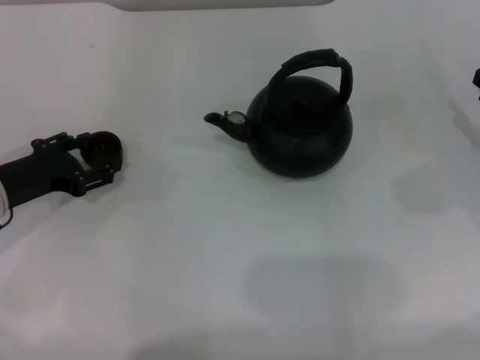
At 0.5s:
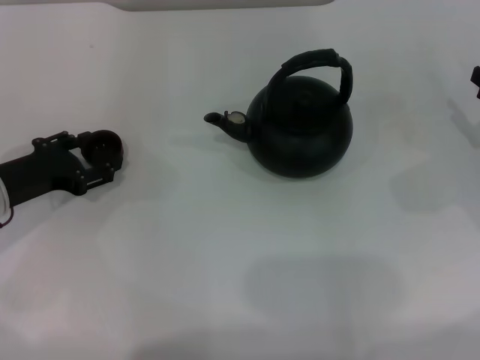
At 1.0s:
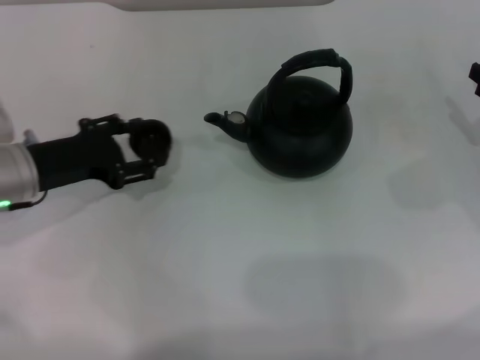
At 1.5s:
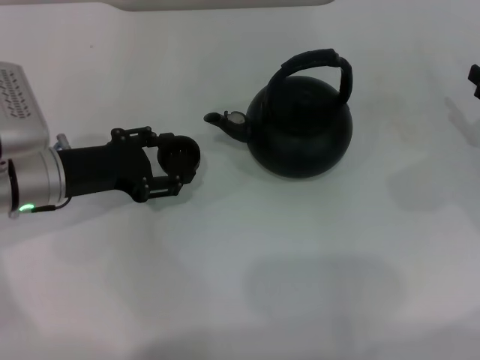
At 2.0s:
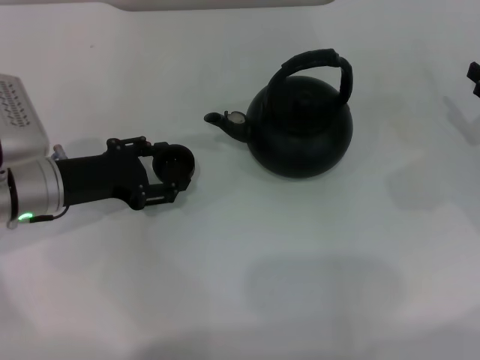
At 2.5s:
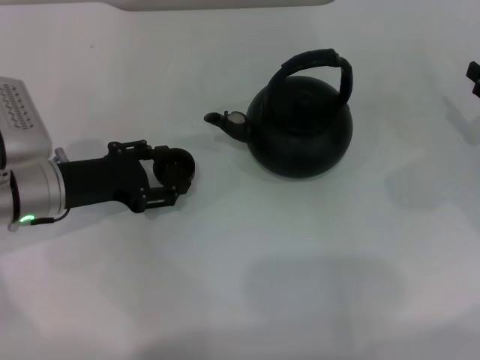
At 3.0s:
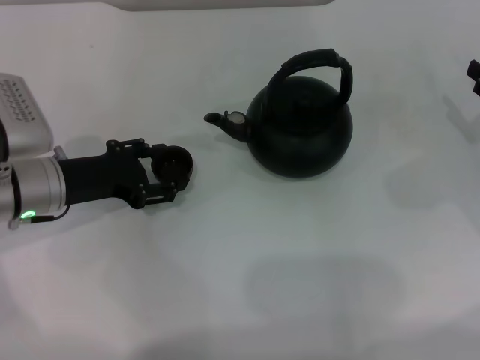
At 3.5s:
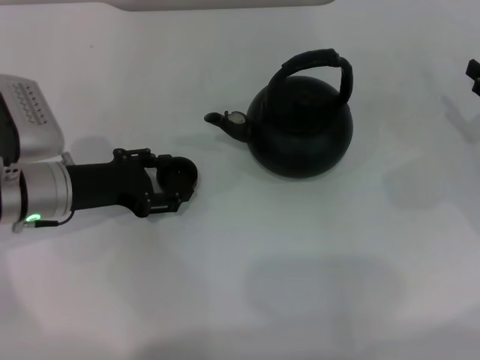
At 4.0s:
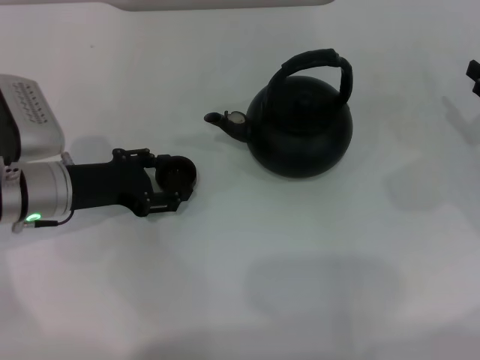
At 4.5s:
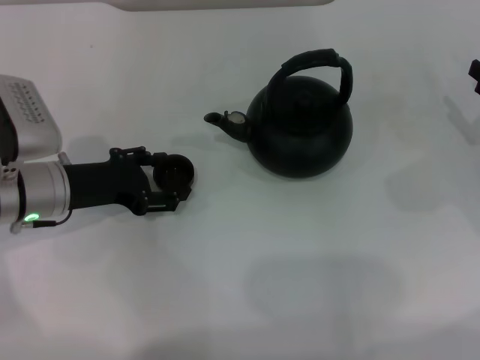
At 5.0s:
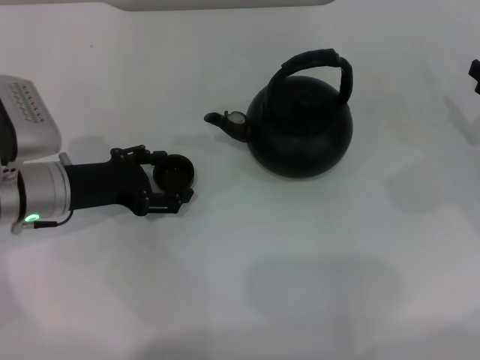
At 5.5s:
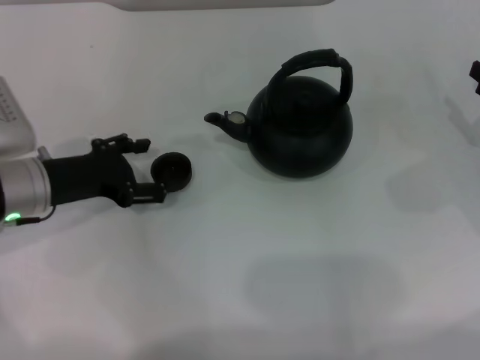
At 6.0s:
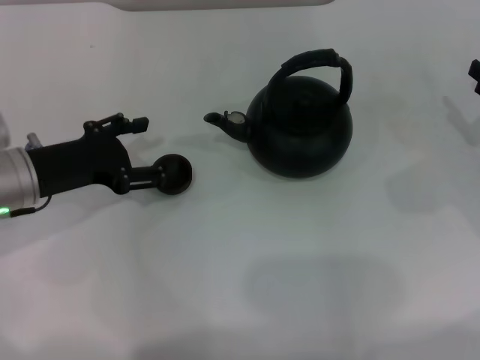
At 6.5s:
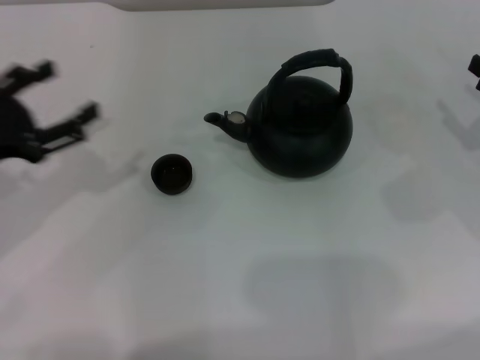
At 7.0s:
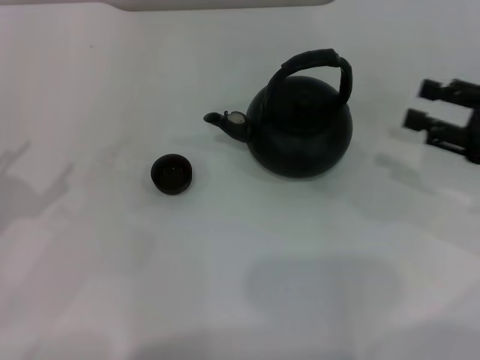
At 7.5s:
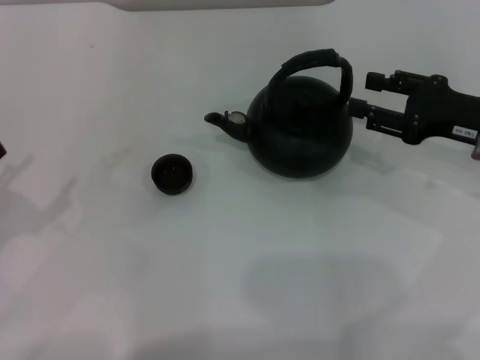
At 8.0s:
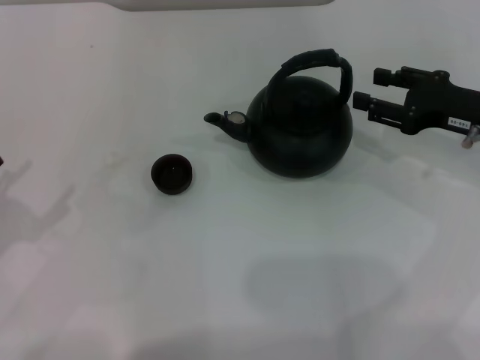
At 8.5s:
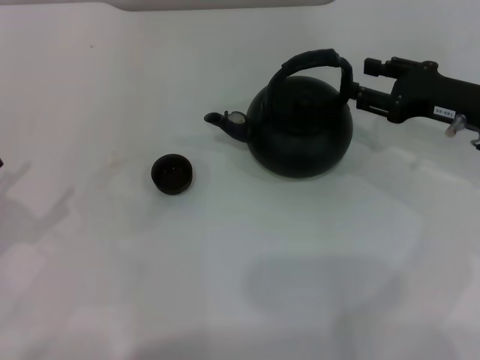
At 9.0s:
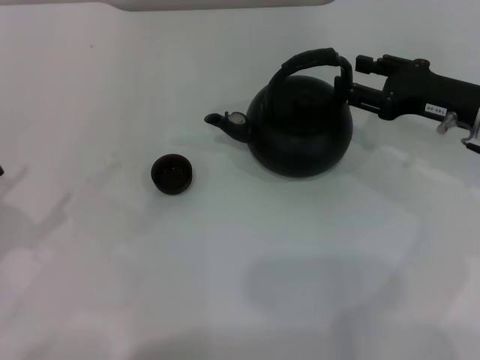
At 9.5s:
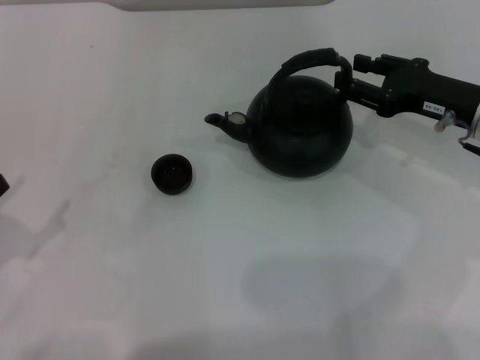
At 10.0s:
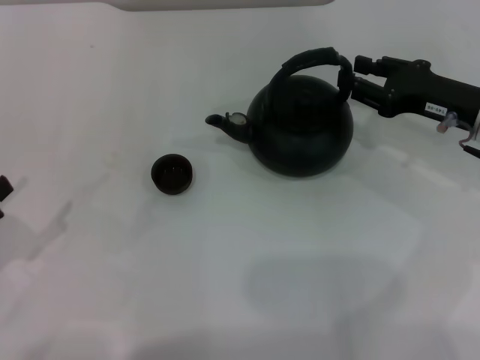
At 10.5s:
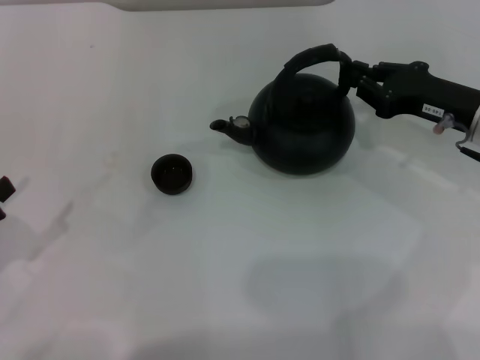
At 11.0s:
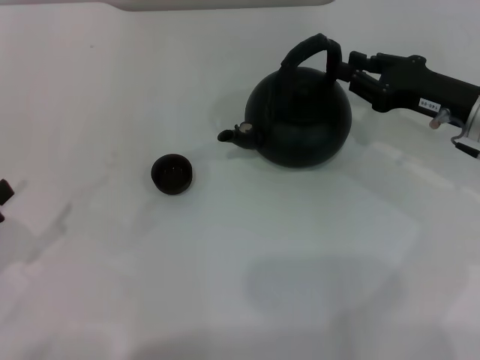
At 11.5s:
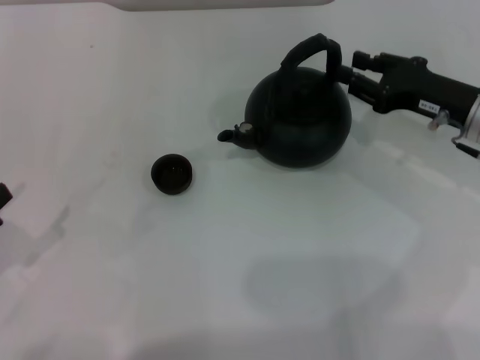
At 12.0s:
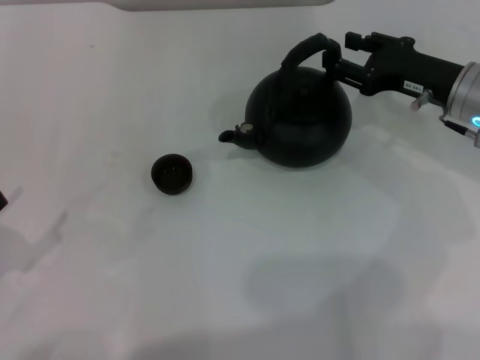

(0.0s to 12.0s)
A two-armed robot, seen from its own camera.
Task of the whole recording: Grasp the handle of the teapot with one hand and pour tea into the teacup.
Step, 1.0s - 6.0s: Place the teacup in the center of view with the left gripper.
0.0s - 2.0s: The left gripper goes approximately 5 cm to the right, and closes its fingers.
2.0s - 4.0s: The grippers move only a little.
4.0s - 6.0s: The left gripper opens.
6.0s - 8.0s: The right gripper goes roughly 5 cm to the left, while the left gripper travels backward and to the left by roughly 15 cm.
8.0s - 10.0s: The grippers make only small movements.
10.0s - 12.0s: The right gripper closes, then reopens.

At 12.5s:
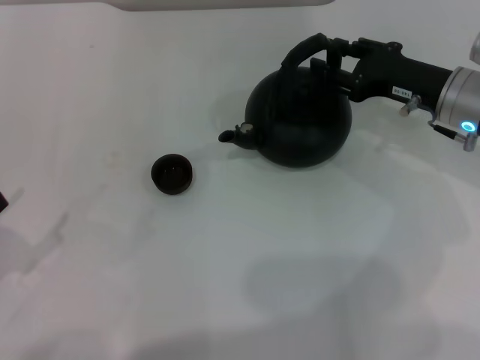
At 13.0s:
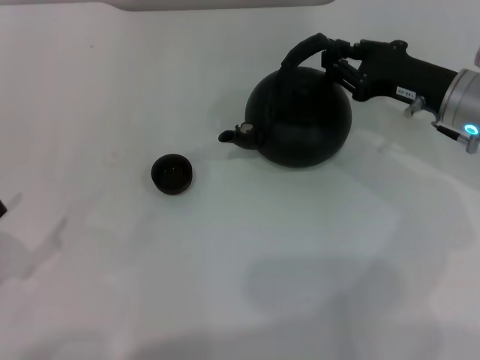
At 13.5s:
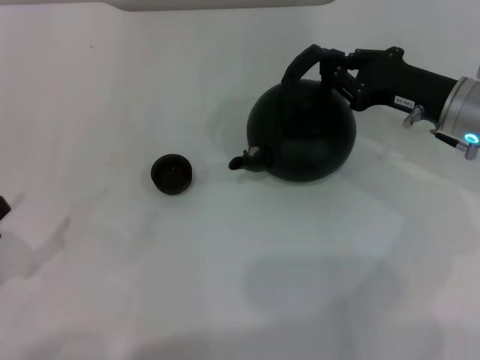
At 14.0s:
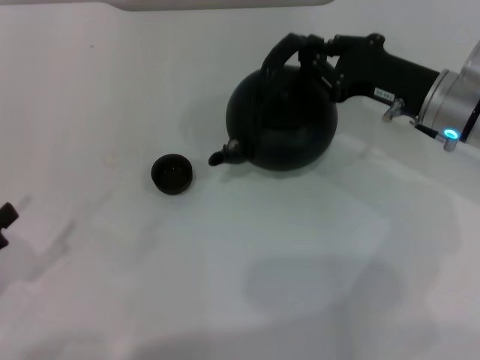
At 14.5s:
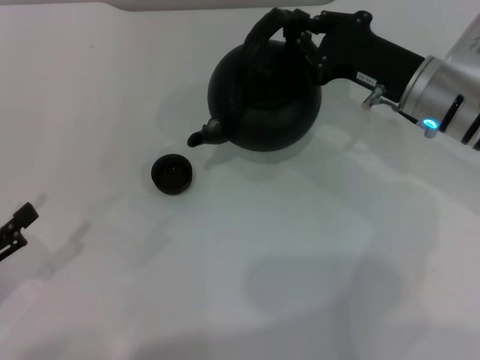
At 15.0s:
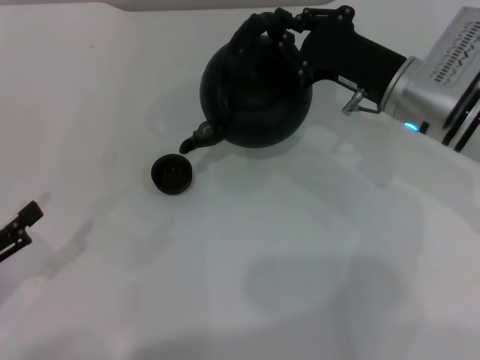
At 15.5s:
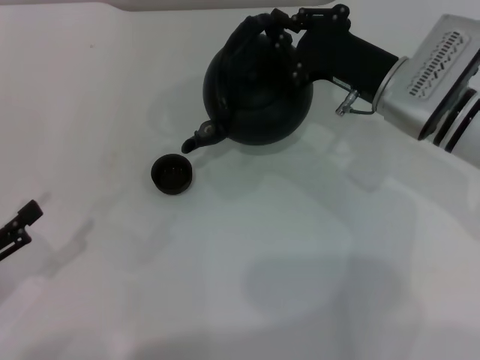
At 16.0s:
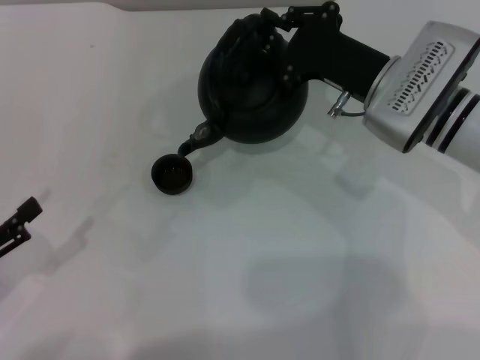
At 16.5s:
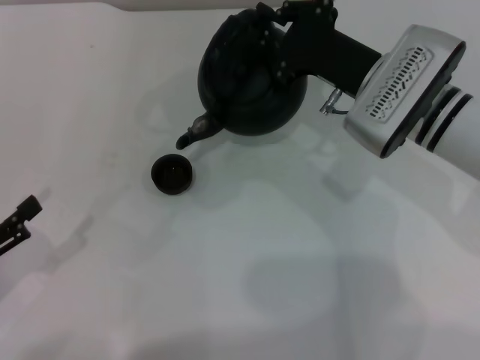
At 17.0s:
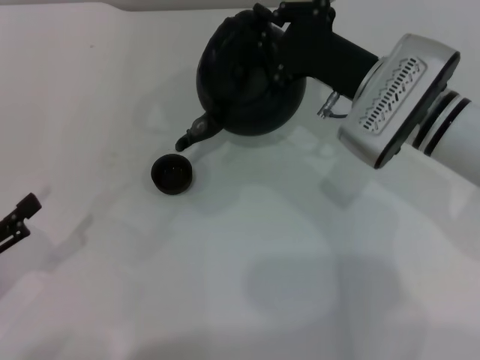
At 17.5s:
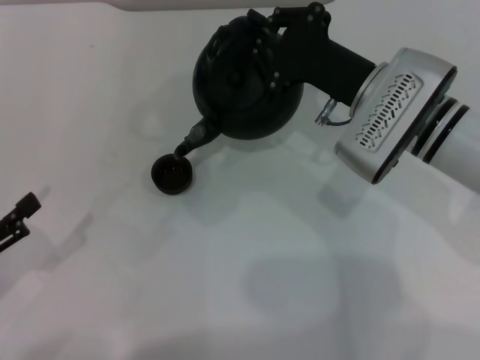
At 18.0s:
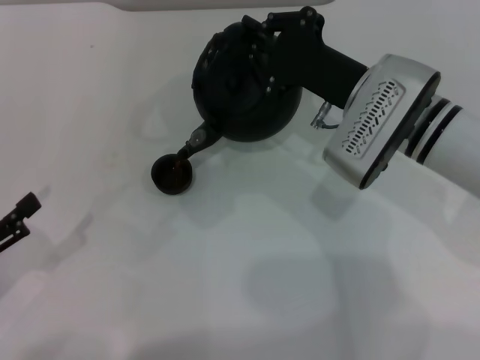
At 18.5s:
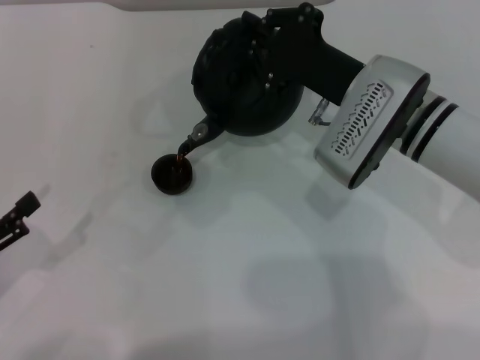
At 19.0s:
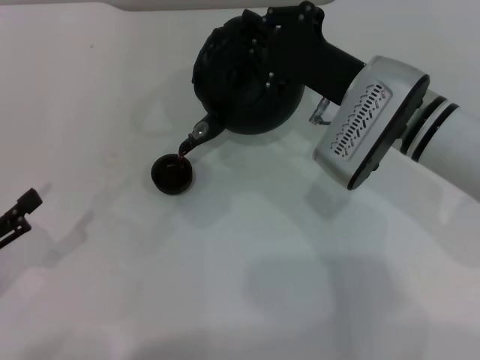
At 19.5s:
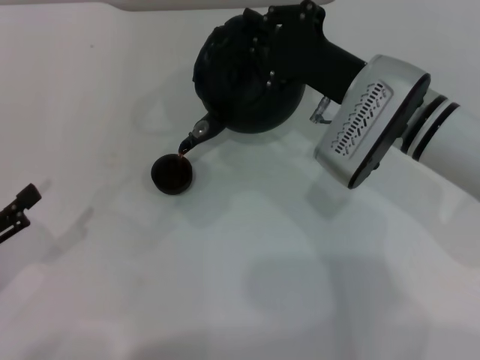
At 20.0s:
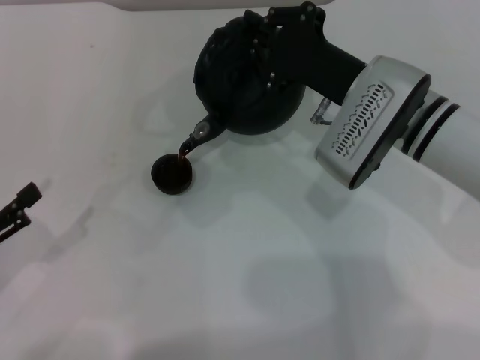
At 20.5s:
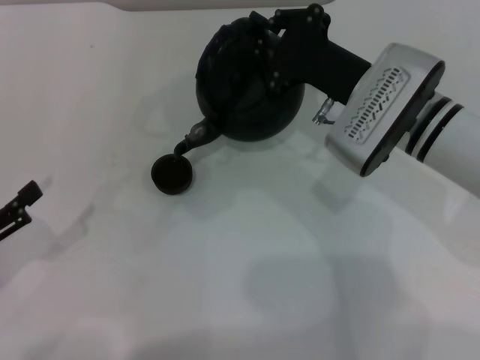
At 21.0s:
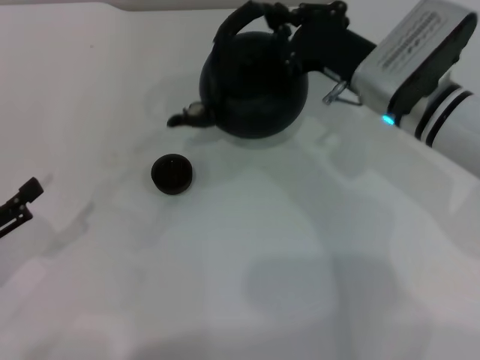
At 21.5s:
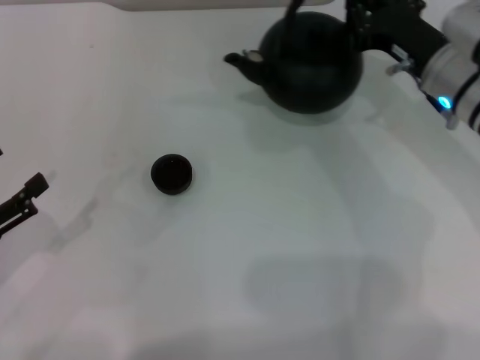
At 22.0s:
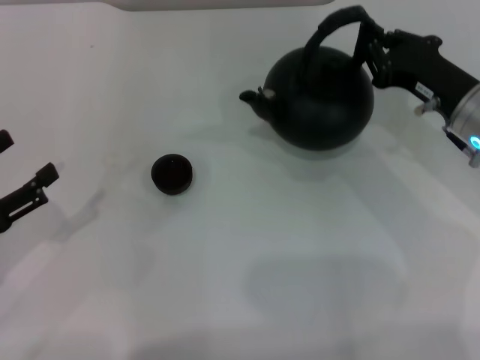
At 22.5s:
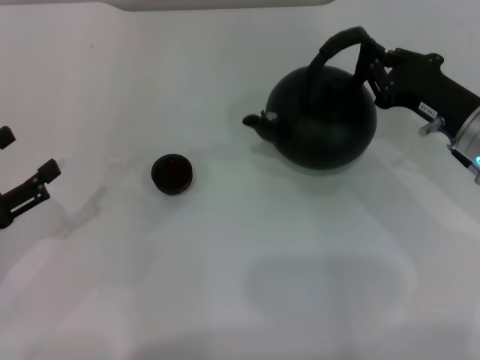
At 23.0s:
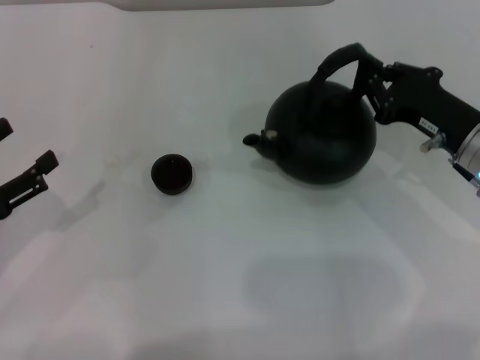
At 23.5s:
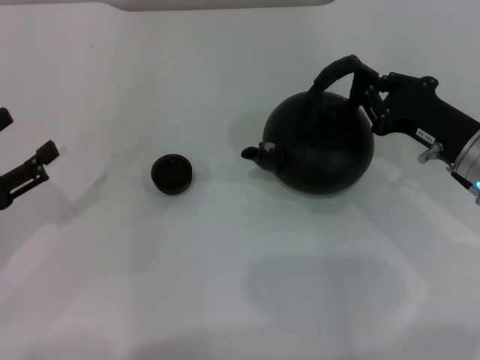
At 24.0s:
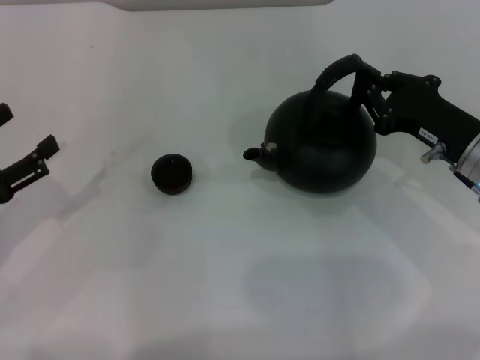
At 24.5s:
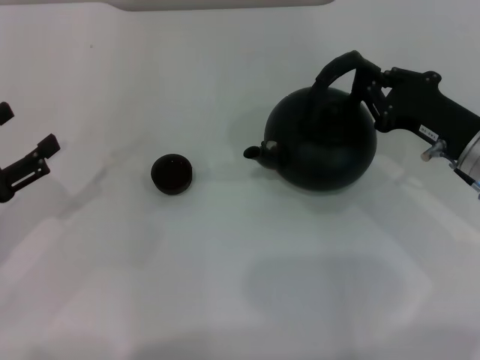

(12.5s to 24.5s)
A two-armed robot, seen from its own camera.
Task of the whole recording: Grasp the handle of the teapot with one hand and pour tea into the teacup.
Step, 14.5s - 21.0s: Pour tea into the teacup with the right gripper.
12.5s - 14.5s: The right gripper closes its fingers.
16.5s - 20.5s: The grippers make only small movements.
20.5s - 22.5s: The right gripper is displaced to the right by approximately 10 cm.
22.5s - 24.5s: The grippers make only small movements.

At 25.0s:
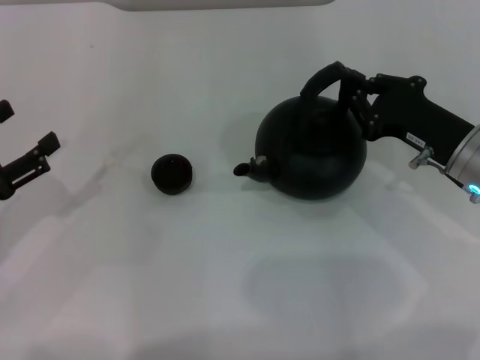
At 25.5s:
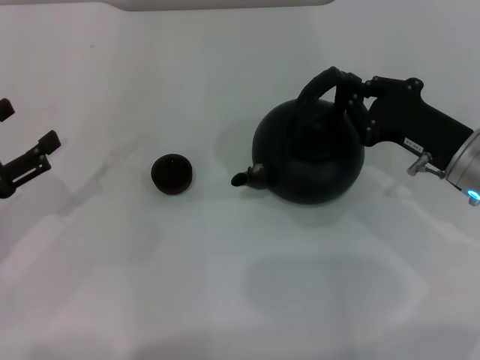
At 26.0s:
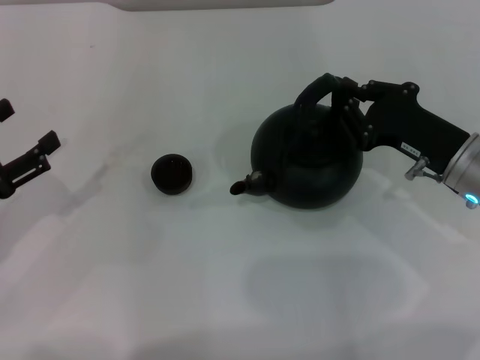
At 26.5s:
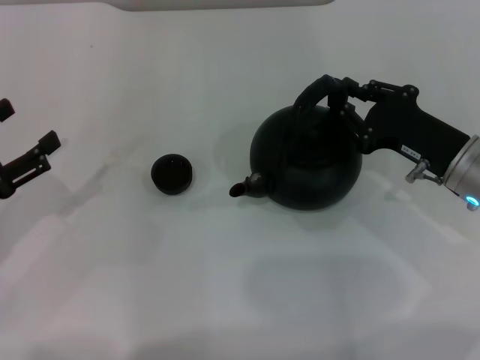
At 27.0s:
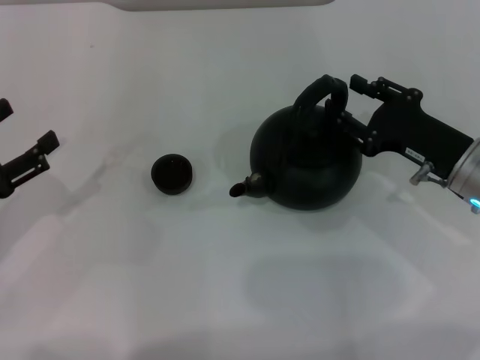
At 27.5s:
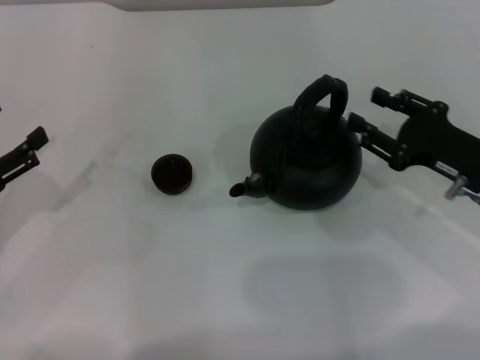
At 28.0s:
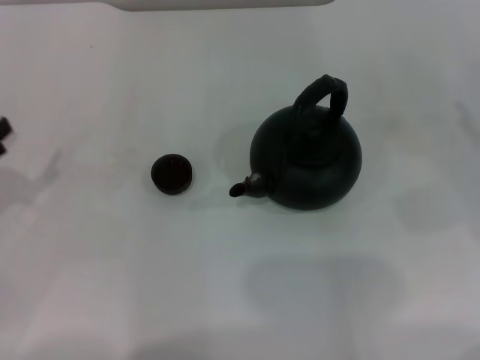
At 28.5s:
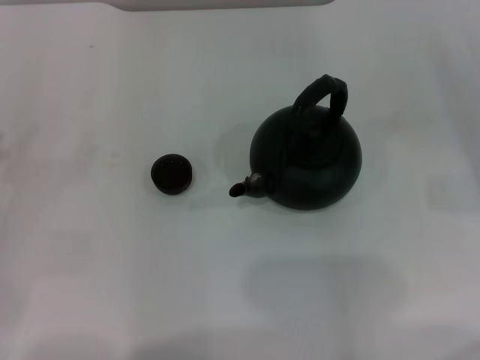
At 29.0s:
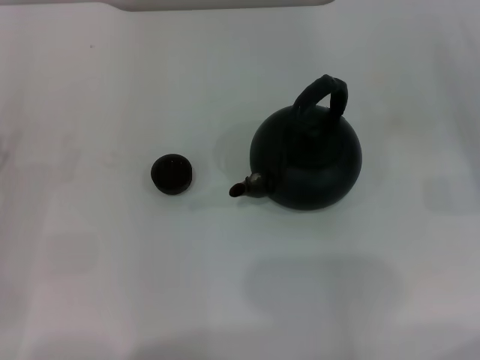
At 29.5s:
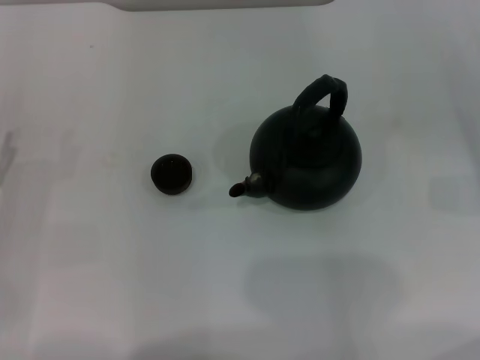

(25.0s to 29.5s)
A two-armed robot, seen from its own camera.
Task of the whole recording: Grasp the handle of the teapot with one hand and pour tea into the teacup.
Step, 25.0s - 27.5s: Put down the teapot with the right gripper.
25.0s - 27.0s: The right gripper opens.
27.0s - 29.5s: The right gripper heads to the right, covering roughly 15 cm.
